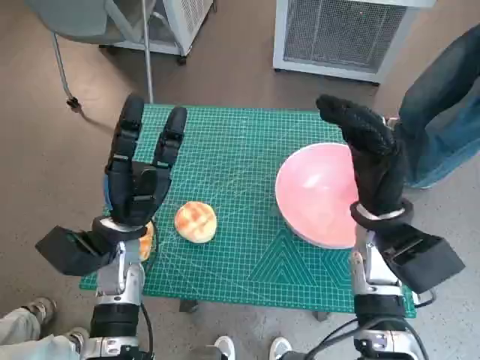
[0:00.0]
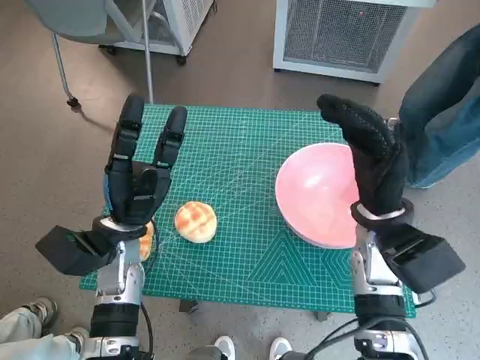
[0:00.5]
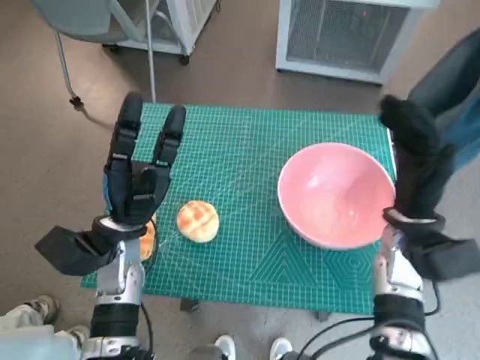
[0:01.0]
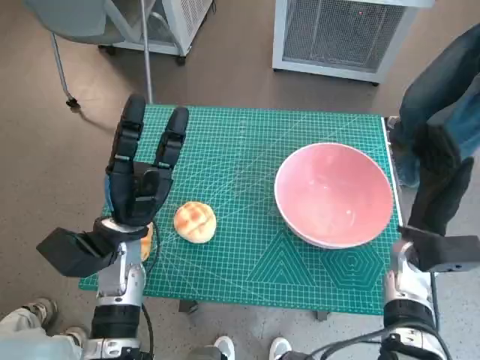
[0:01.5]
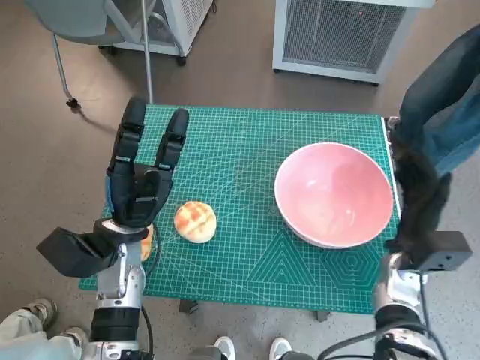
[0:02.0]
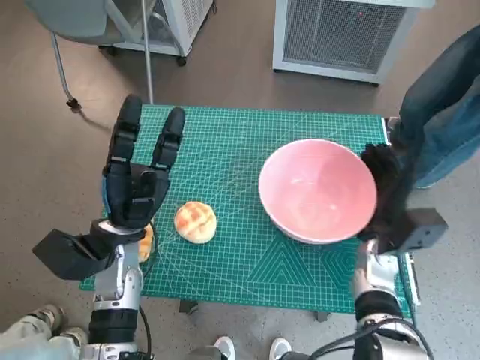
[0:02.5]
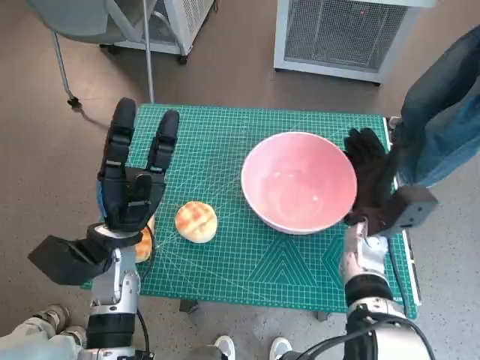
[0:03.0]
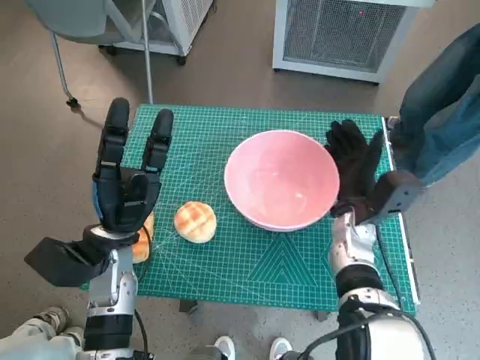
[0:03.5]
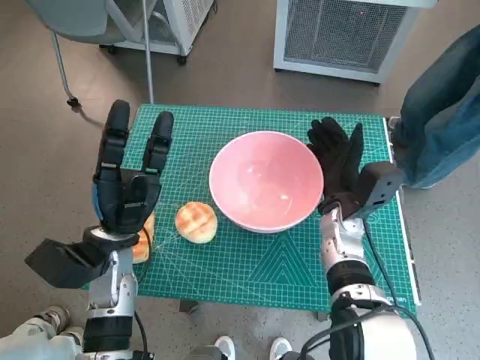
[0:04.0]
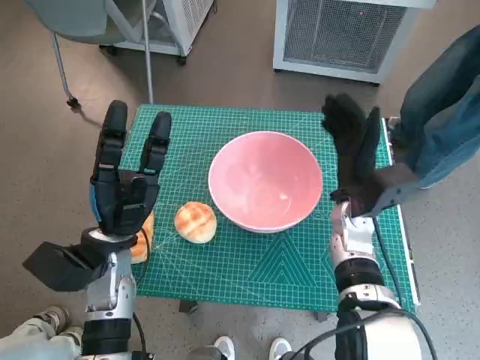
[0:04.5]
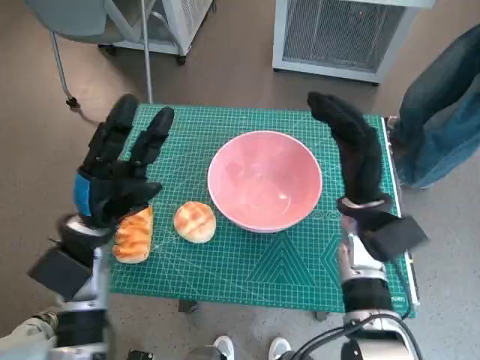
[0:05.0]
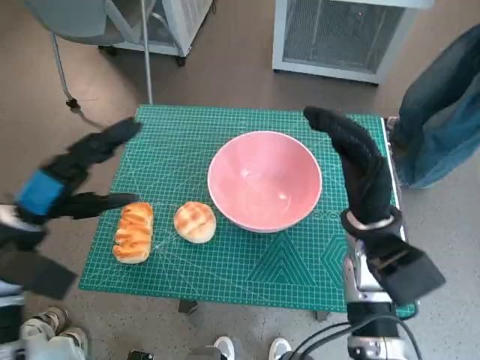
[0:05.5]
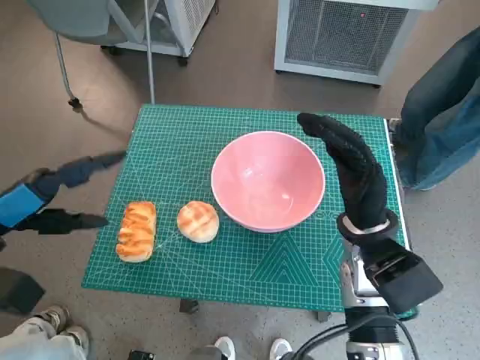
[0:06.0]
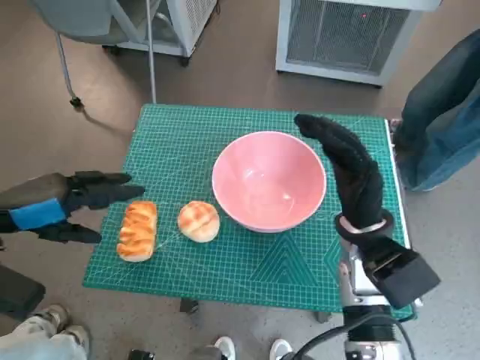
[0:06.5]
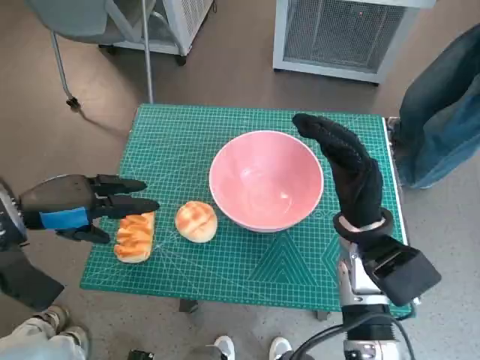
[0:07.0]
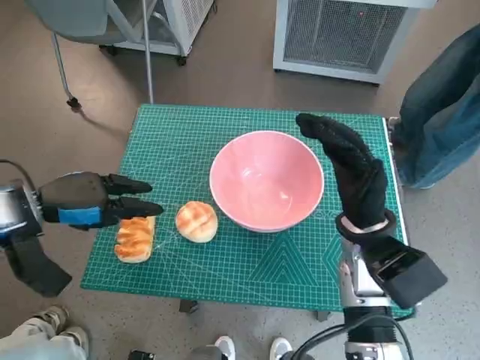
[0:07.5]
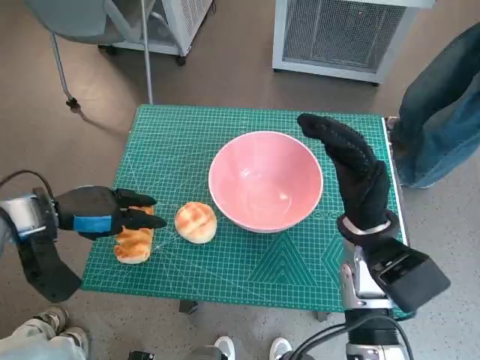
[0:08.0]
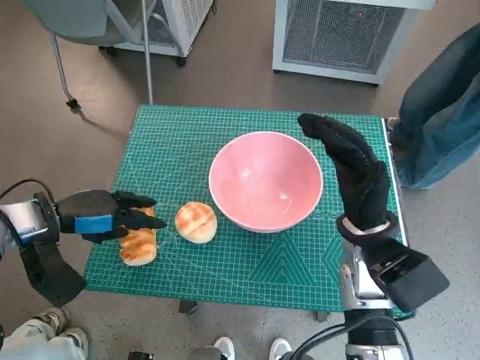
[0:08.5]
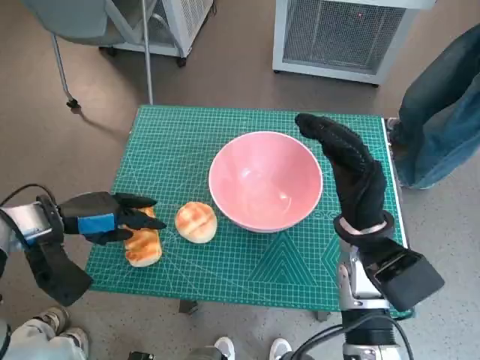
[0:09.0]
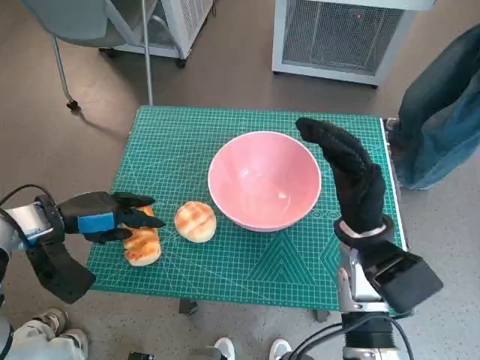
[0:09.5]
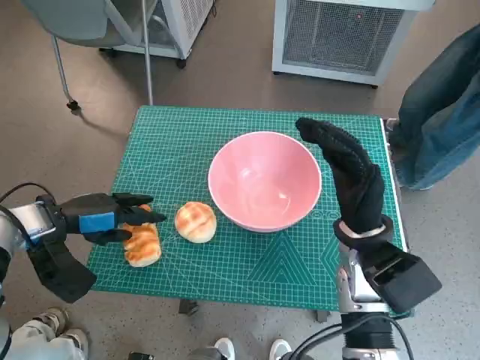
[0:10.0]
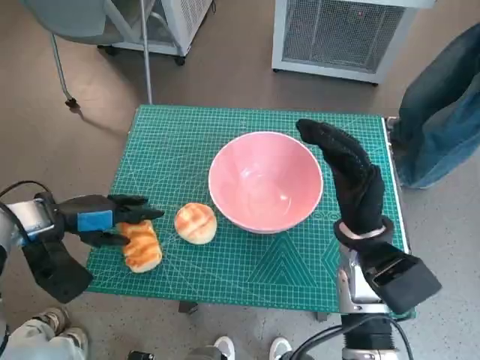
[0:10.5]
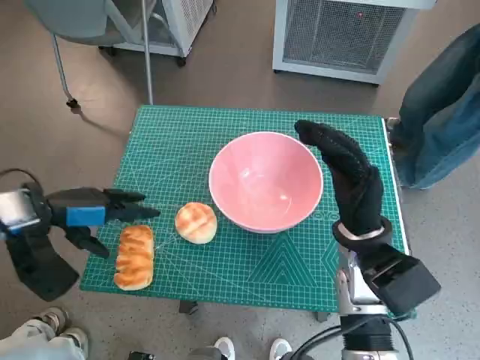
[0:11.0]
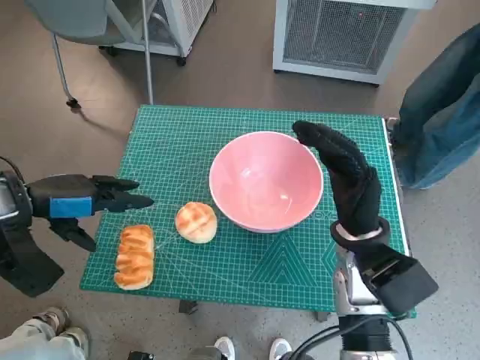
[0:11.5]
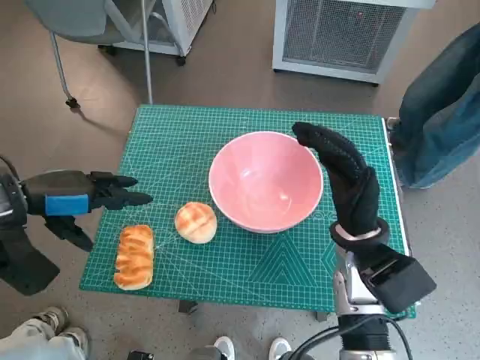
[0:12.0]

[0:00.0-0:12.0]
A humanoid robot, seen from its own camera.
Task of the whole recording: Push the bowl to the center of the table and put the bread into the bowl.
Step, 0:00.0 to 0:04.5: Move the pink bowl to the center of table with right hand.
0:02.0 to 0:04.0: The right hand heads to the left and forward, covering about 10 cm.
0:04.0 to 0:06.0: The left hand moves to the left and upward, roughly 15 cm, while the right hand heads upward and backward, covering some 10 cm.
0:06.0 to 0:08.0: The left hand goes about 5 cm forward.
0:08.0 to 0:10.0: The hands make only small movements.
0:10.0 to 0:12.0: The left hand travels upward by about 10 cm.

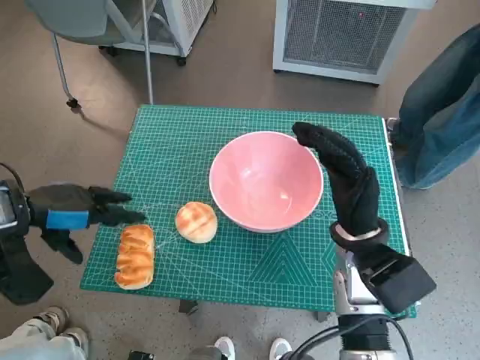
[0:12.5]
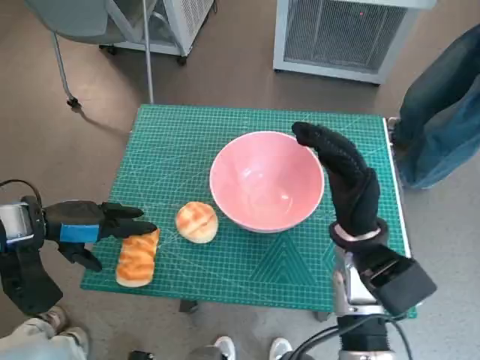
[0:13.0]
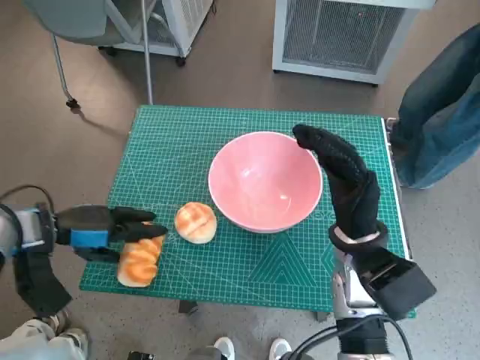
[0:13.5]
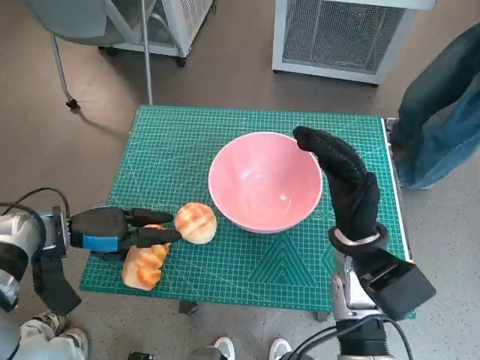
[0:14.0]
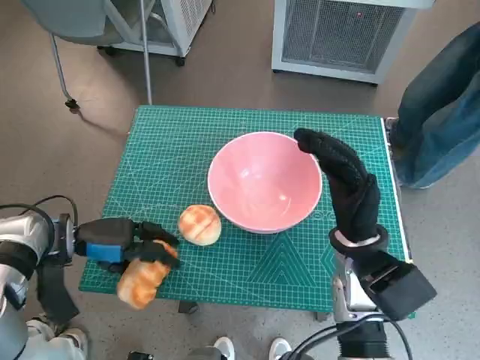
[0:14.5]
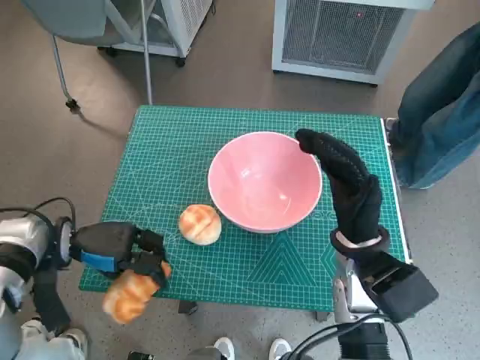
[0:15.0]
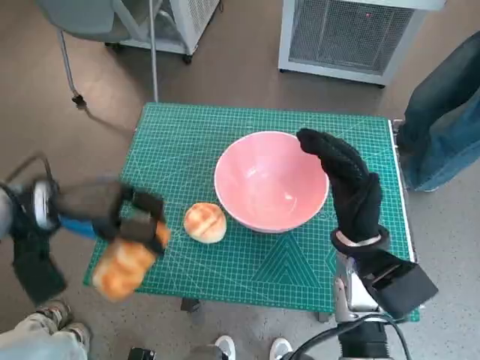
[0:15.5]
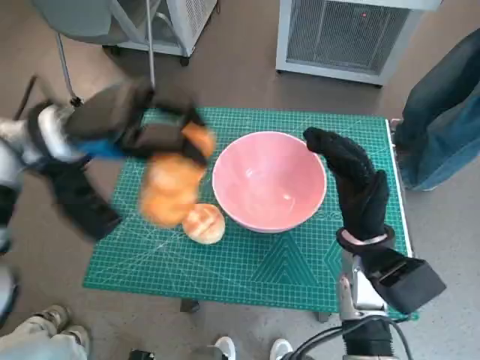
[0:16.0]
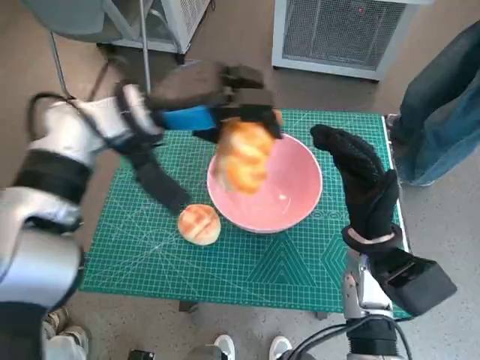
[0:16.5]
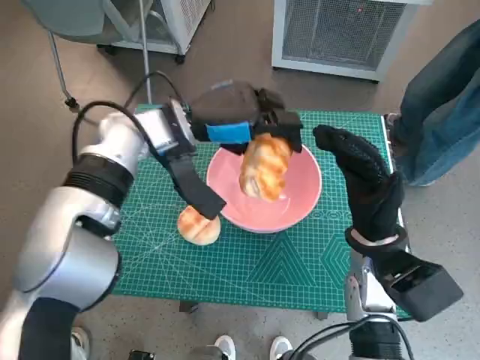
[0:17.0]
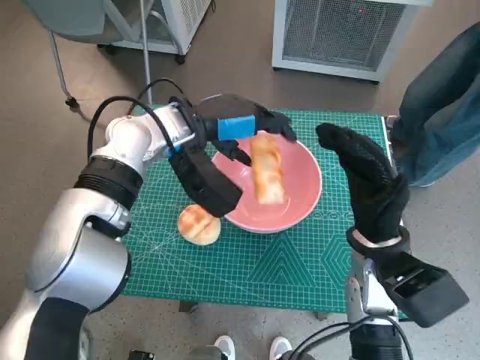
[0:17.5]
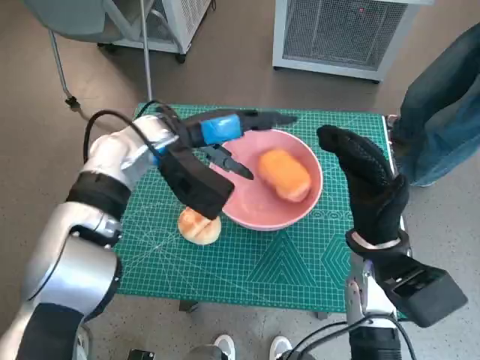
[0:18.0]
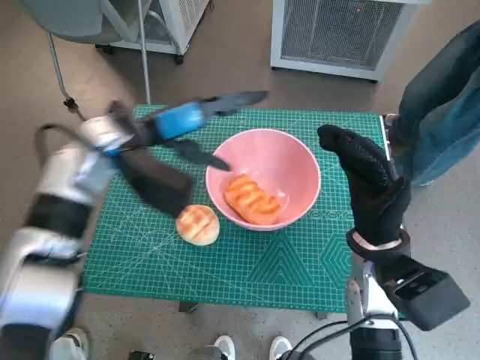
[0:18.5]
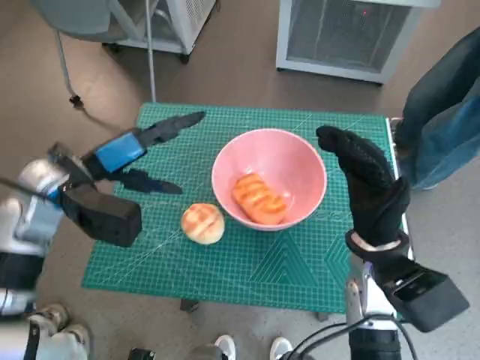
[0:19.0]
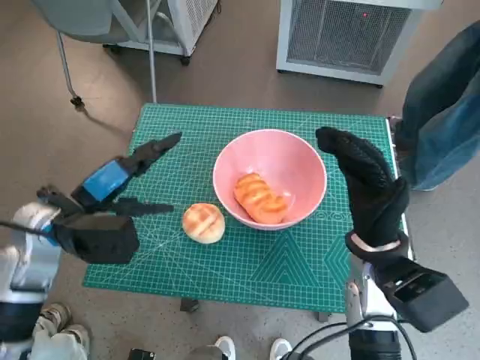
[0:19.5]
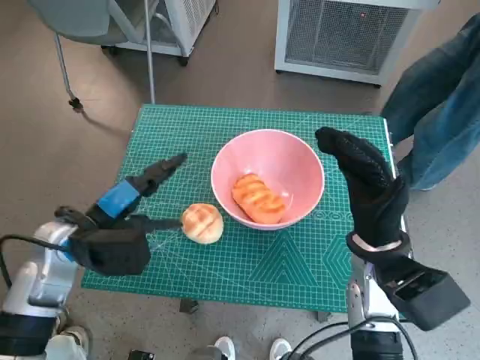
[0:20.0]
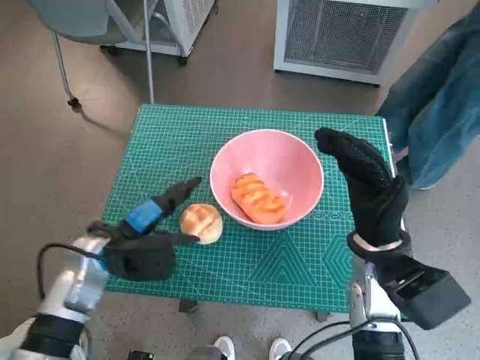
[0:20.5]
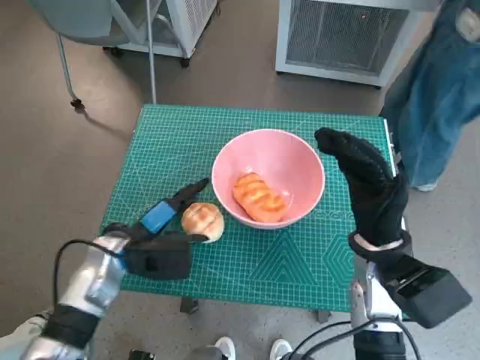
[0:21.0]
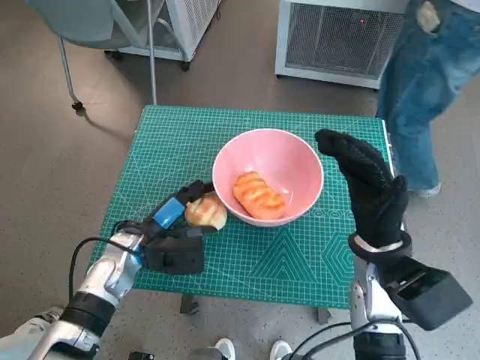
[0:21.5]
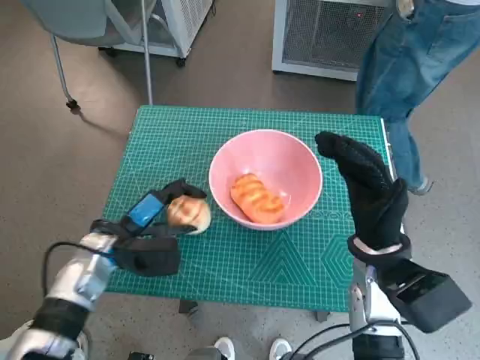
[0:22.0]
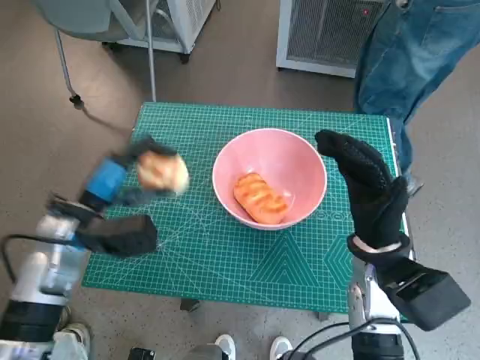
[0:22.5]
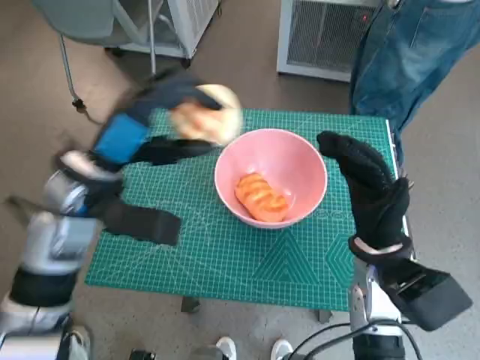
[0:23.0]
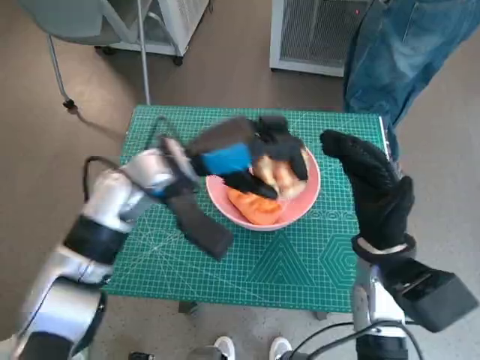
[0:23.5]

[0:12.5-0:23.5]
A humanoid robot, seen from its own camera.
Task of the whole recording: Push the bowl to the center of the table and put the bread into the bowl.
Step, 0:12.5 to 0:14.5: Grasp the long bread with left hand.
Step, 0:15.0 to 0:18.0: Place the long bread in pink bowl with left hand.
Step, 0:18.5 to 0:21.5: Grasp the round bread with left hand.
0:12.5 to 0:14.5: The left hand travels downward by some 10 cm.
0:14.5 to 0:16.0: The left hand goes some 20 cm upward, to the right and forward.
0:16.0 to 0:18.0: The left hand is displaced to the right by some 10 cm.
0:18.0 to 0:20.0: The left hand moves to the left, backward and downward, roughly 20 cm.
0:20.0 to 0:21.5: The left hand goes approximately 10 cm downward.
0:21.5 to 0:23.5: The left hand travels upward and to the right by approximately 15 cm.

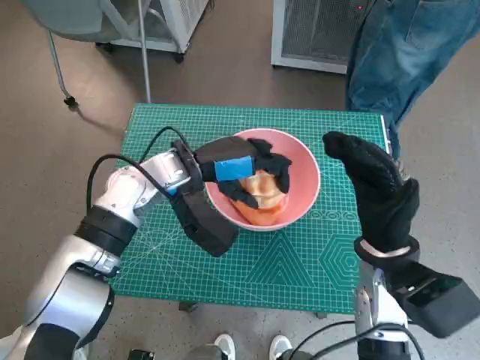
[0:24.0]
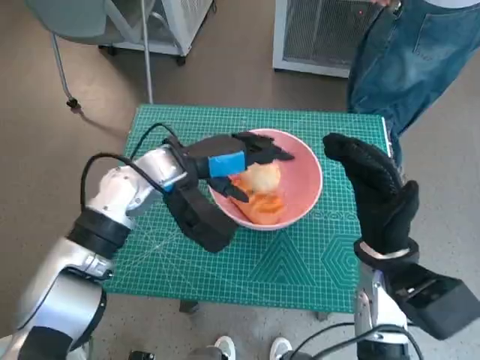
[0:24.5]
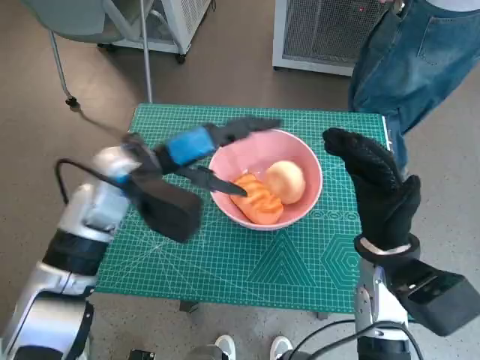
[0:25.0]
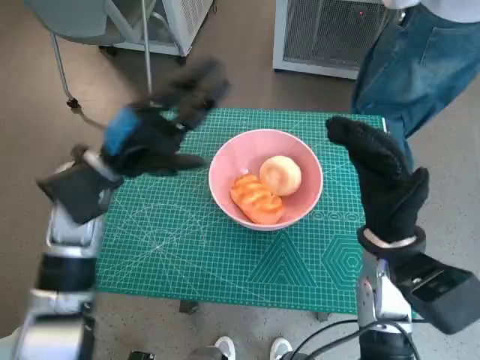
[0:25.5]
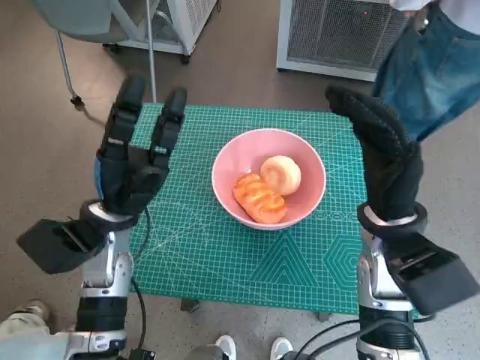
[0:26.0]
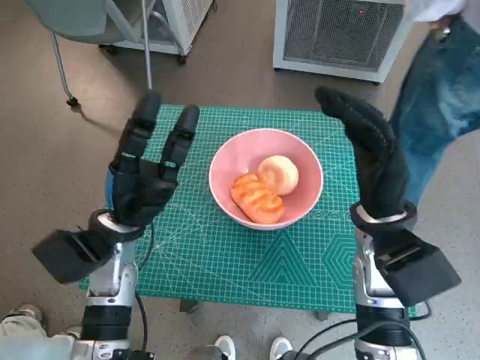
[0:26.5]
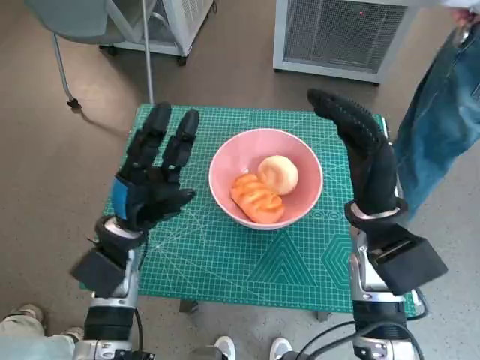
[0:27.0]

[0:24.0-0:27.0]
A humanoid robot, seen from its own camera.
Task of the whole recording: Push the bowl to the center of the table and put the bread into the bowl.
0:24.0 to 0:25.5: The left hand goes some 10 cm to the left.
0:25.5 to 0:27.0: The left hand heads downward, covering some 10 cm.
